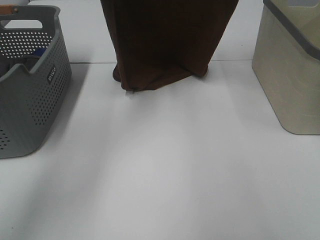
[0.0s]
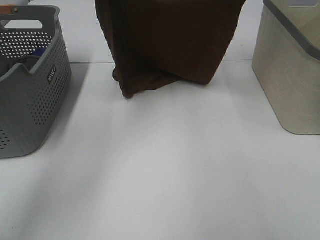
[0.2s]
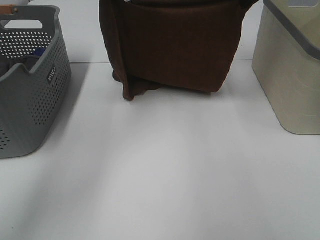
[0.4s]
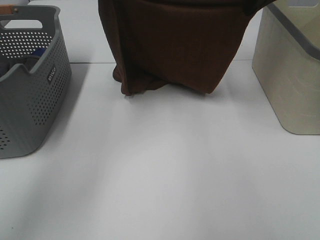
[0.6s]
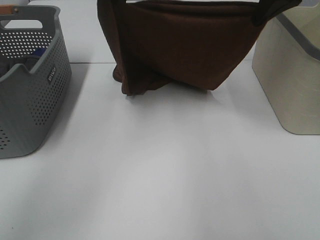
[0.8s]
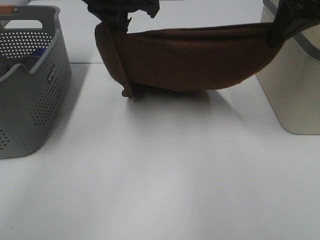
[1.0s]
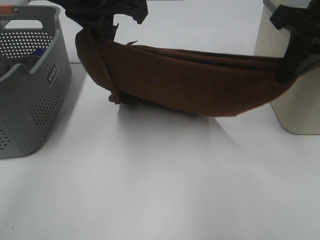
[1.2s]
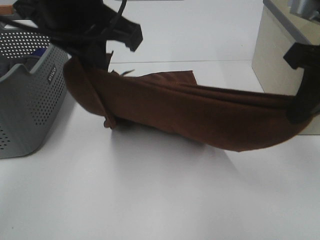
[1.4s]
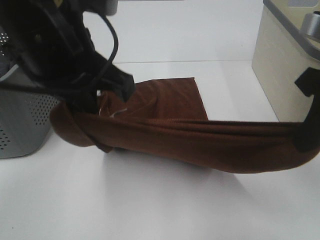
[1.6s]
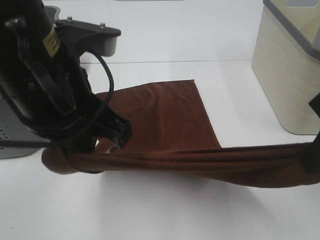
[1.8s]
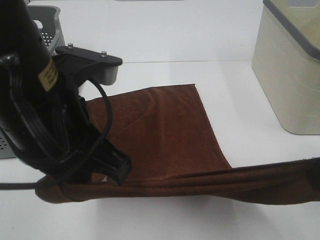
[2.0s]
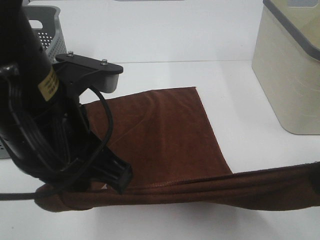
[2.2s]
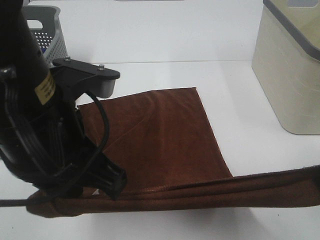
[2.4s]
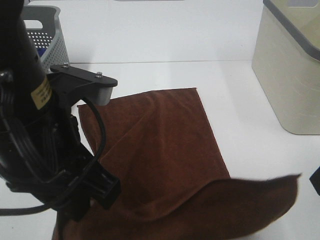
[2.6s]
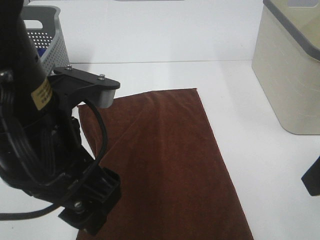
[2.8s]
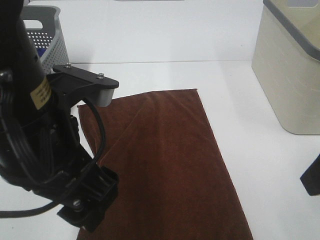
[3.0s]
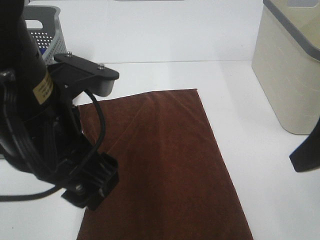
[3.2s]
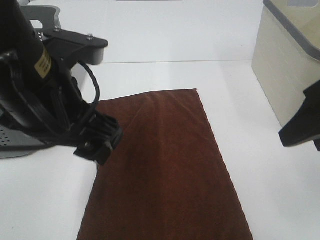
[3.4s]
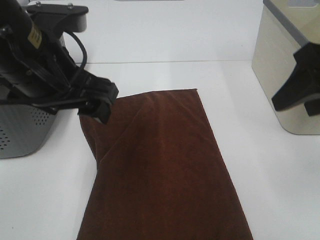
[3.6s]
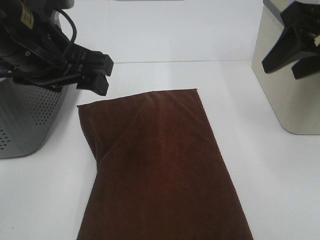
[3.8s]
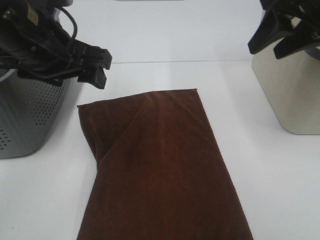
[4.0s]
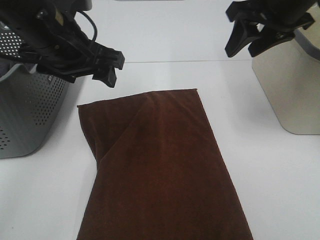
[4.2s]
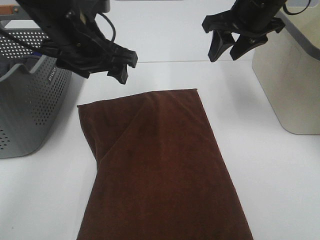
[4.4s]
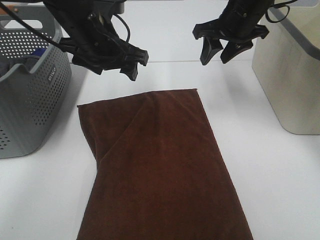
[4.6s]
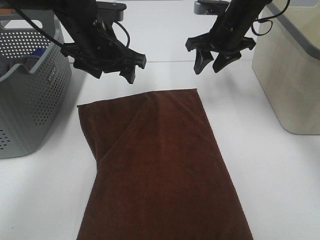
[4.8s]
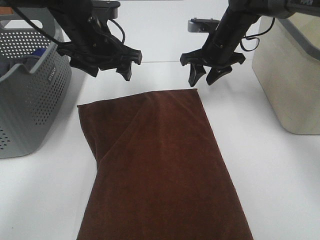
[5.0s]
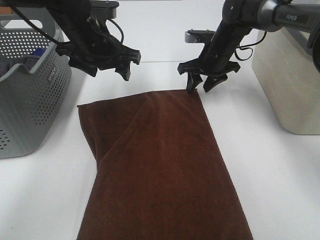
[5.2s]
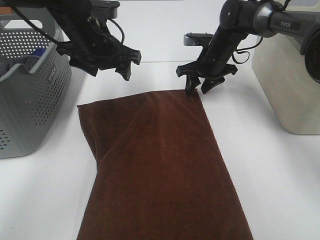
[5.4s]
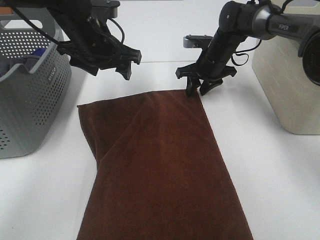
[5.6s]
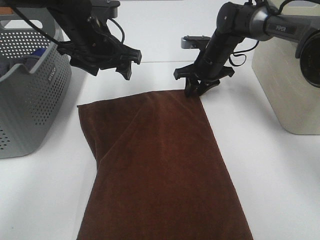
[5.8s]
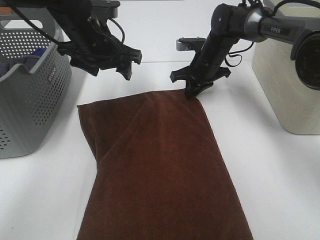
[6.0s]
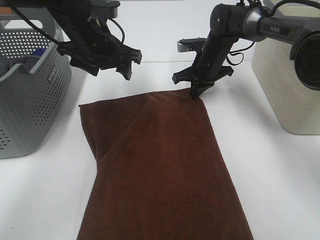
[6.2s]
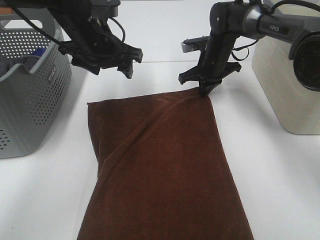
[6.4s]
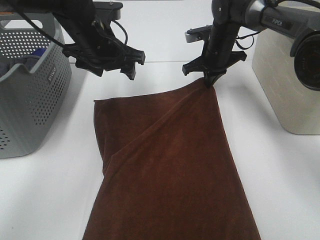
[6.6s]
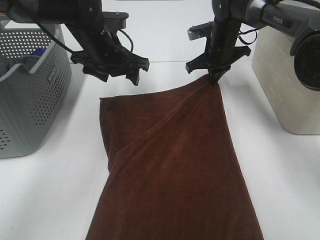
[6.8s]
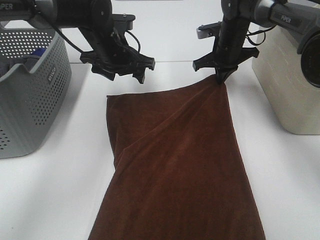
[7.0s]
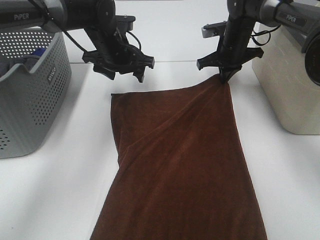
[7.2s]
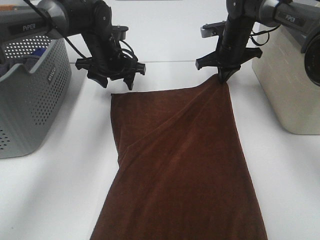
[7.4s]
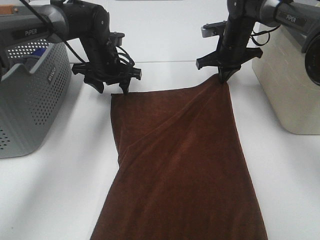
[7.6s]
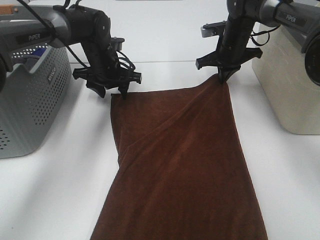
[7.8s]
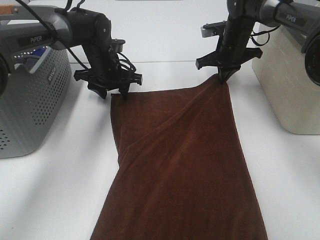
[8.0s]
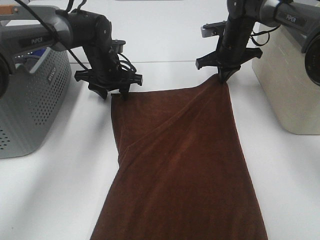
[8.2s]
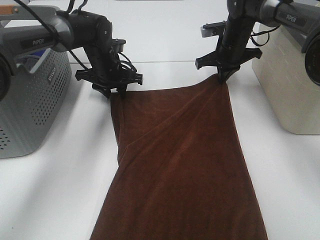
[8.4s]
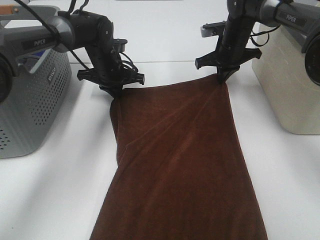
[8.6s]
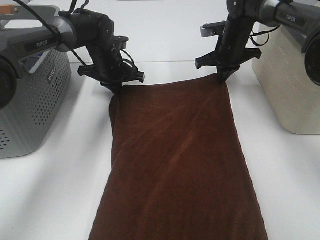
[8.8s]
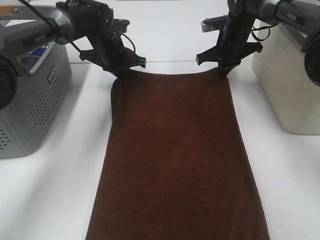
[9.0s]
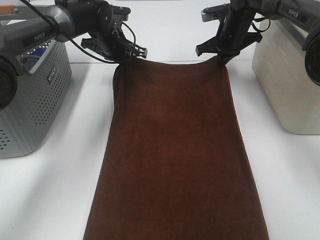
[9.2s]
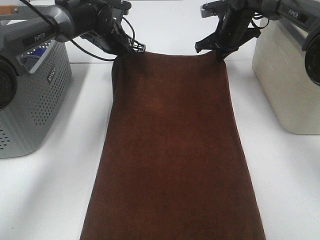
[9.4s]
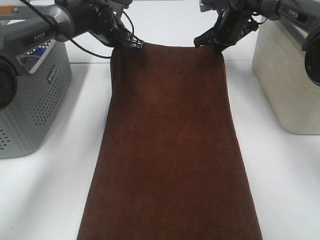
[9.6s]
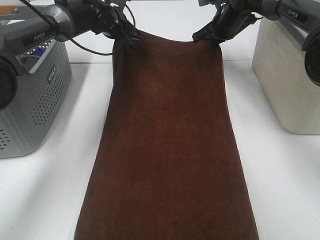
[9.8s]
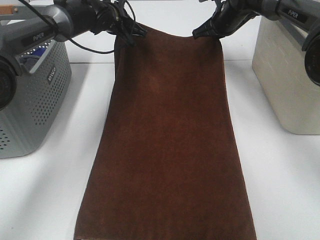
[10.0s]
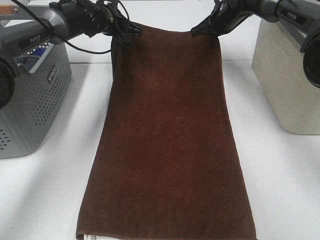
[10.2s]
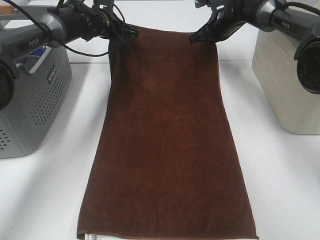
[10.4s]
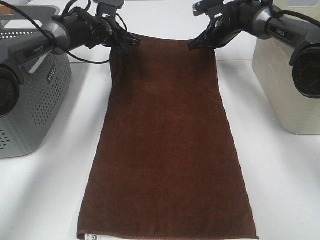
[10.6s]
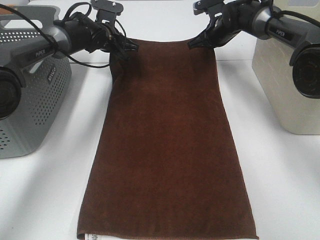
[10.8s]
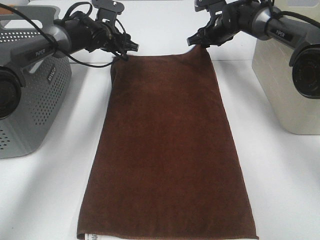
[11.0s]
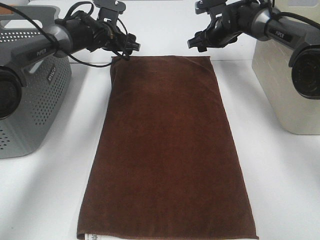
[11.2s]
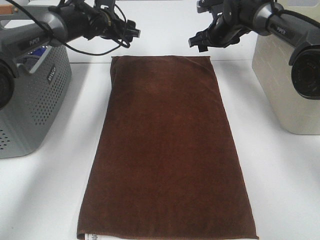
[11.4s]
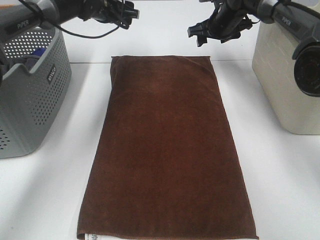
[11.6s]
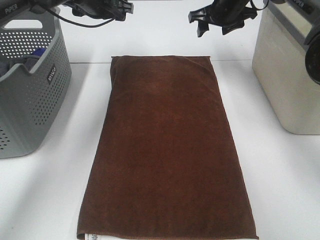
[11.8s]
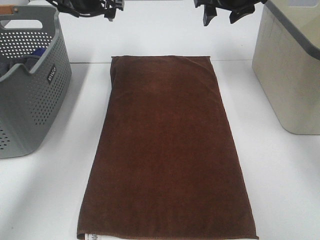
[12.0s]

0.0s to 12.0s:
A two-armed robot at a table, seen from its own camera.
Task of the whole recording: Remove the towel and place it.
Step, 0.0s to 4.4s: Left hand:adjust the brown towel.
Step, 0.0s to 4.4s: Right hand:adjust the brown towel.
0.0s to 1.6s: Both grippers travel together backward, approximately 25 cm.
1.6s to 3.0s: The two grippers go some 5 cm backward. The right gripper opens its fingers, while the left gripper opens its fingers.
3.0s to 4.4s: Both grippers travel together forward, roughly 25 cm.
4.4s to 6.0s: The right gripper moves downward and forward, some 20 cm, and closes up; the left gripper heads forward, covering approximately 5 cm.
6.0s to 7.6s: The left gripper moves downward and forward, roughly 10 cm. The right gripper changes place by approximately 5 cm.
7.6s to 9.0s: The left gripper closes.
9.0s to 10.4s: The left gripper ends up approximately 5 cm from where it was.
10.4s to 12.0s: The two grippers go some 10 cm upward. The left gripper opens up. The right gripper opens.

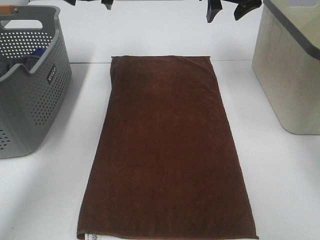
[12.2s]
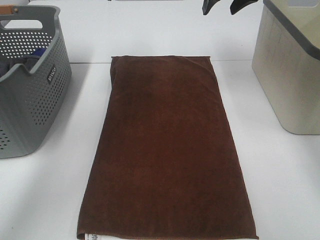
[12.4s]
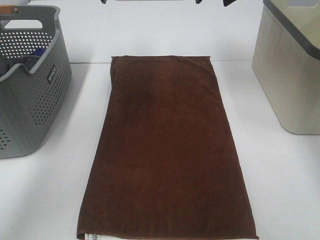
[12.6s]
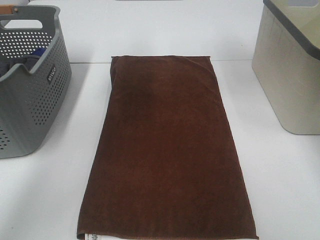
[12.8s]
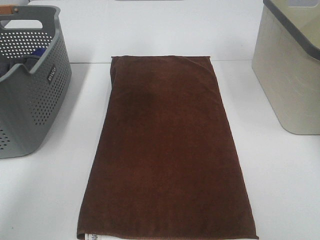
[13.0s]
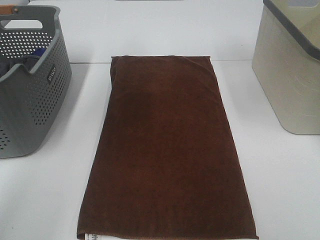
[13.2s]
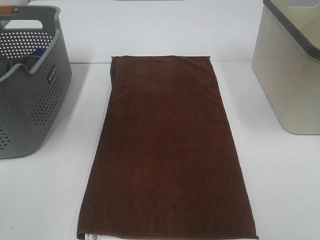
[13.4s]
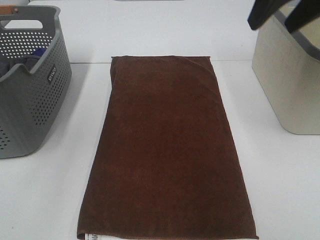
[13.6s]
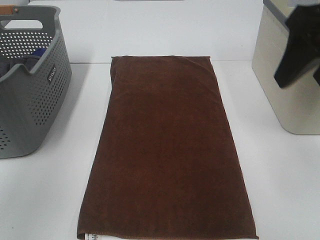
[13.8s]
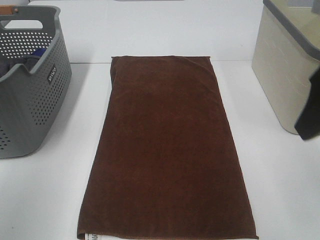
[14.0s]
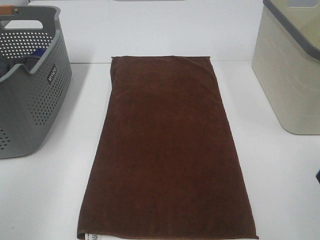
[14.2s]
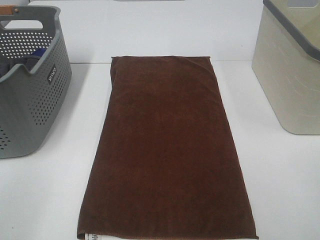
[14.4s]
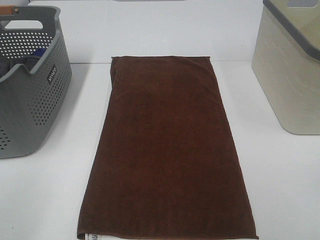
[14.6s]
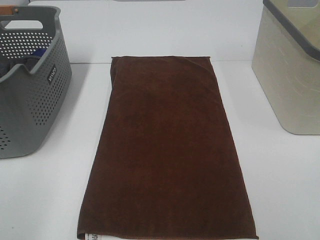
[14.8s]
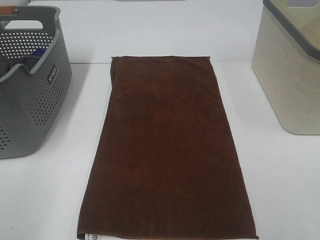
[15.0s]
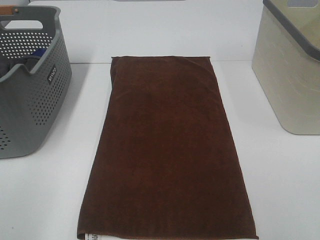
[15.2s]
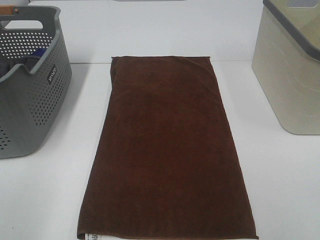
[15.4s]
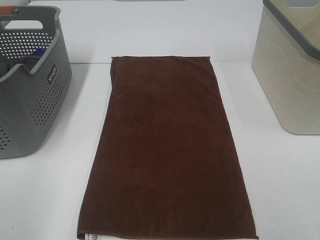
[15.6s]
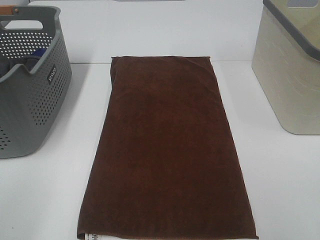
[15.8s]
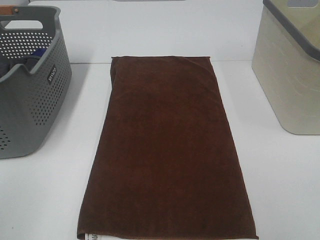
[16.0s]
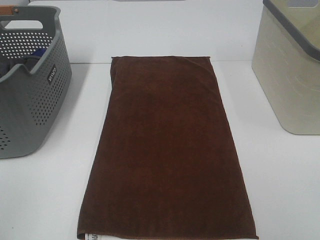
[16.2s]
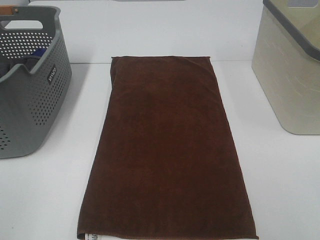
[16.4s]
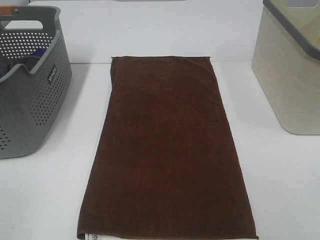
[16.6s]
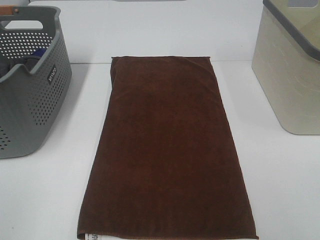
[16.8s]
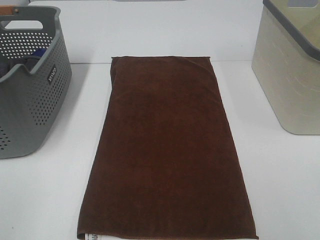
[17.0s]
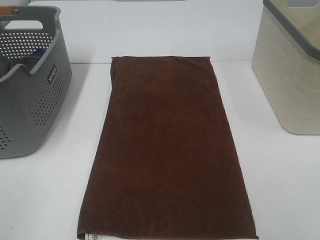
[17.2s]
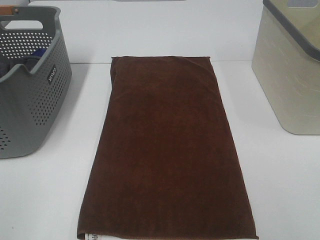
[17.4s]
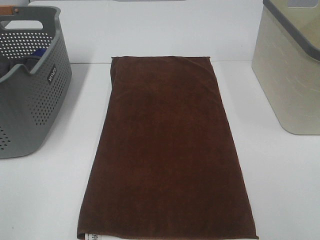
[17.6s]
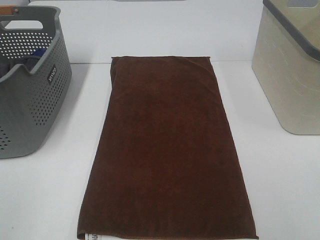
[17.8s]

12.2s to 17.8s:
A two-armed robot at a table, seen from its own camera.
Task of the whole recording: Remove the towel and place it.
12.2s to 13.6s: The left gripper moves backward and upward, roughly 30 cm. The right gripper shifts about 20 cm backward.
13.6s to 15.0s: The left gripper shifts some 25 cm backward and downward. The right gripper is displaced backward by some 25 cm.

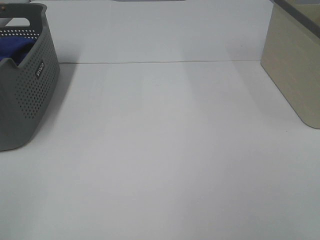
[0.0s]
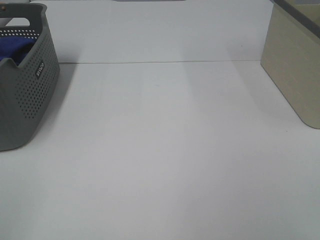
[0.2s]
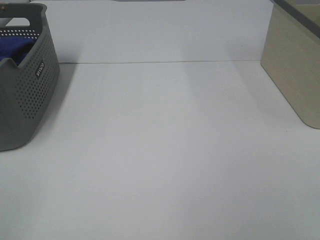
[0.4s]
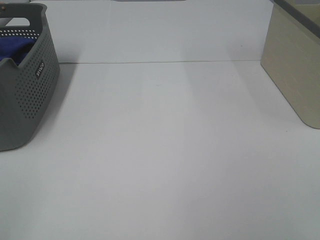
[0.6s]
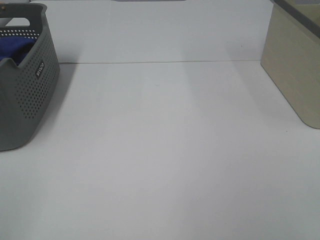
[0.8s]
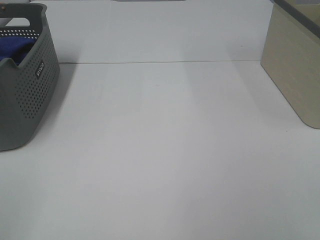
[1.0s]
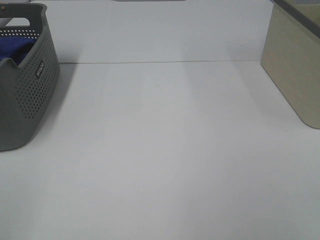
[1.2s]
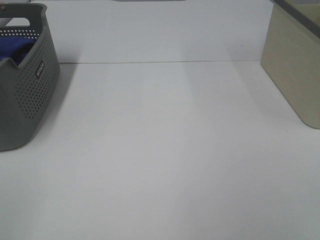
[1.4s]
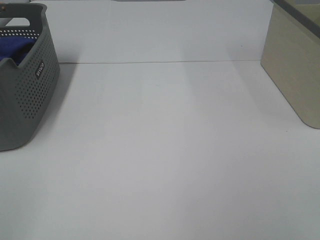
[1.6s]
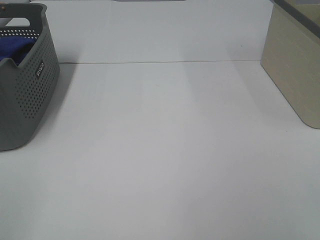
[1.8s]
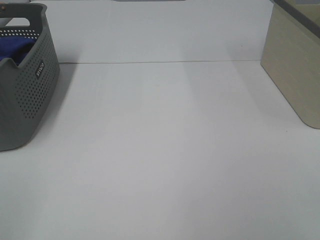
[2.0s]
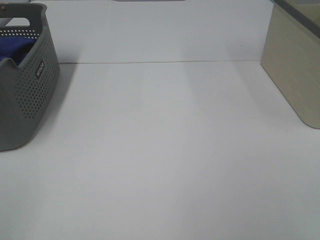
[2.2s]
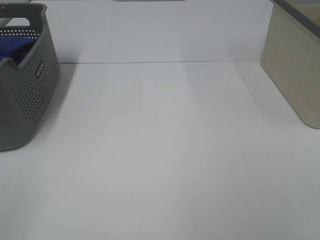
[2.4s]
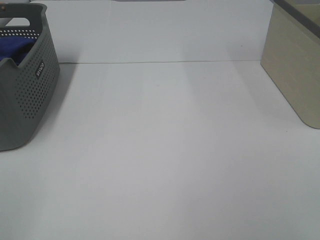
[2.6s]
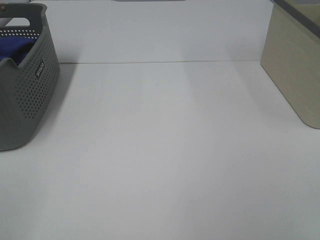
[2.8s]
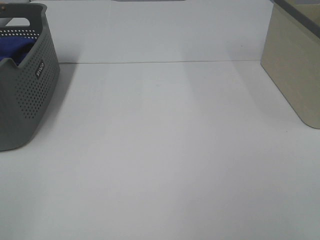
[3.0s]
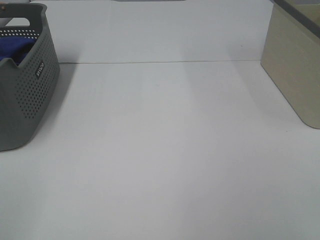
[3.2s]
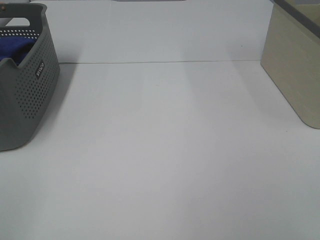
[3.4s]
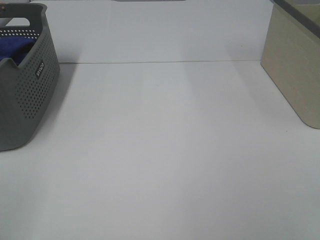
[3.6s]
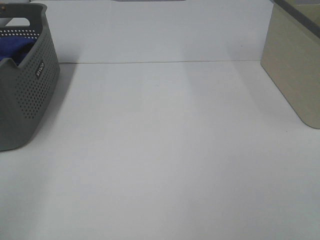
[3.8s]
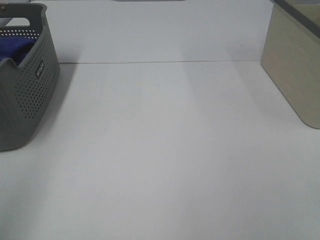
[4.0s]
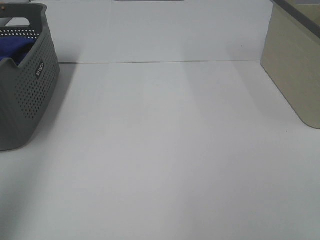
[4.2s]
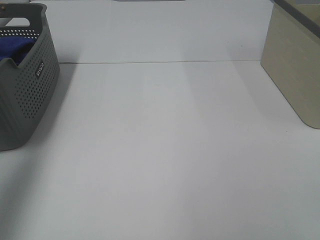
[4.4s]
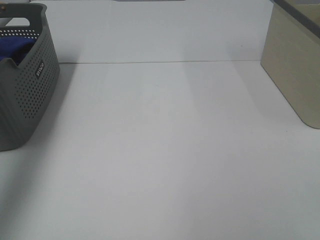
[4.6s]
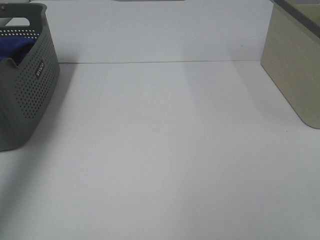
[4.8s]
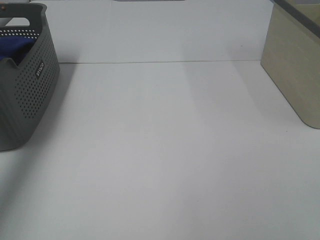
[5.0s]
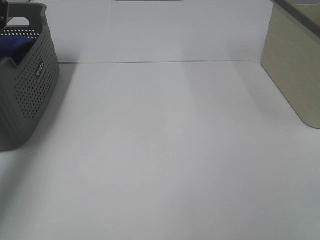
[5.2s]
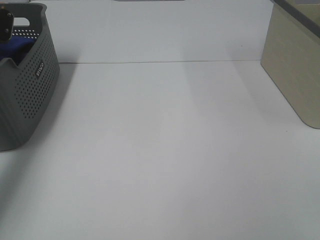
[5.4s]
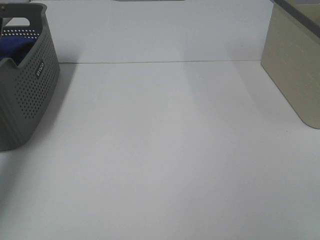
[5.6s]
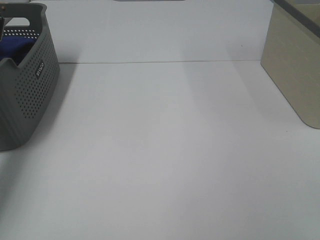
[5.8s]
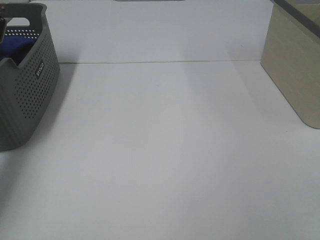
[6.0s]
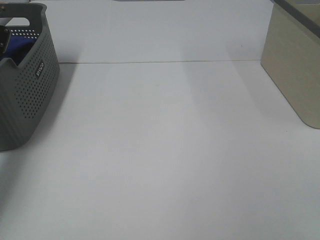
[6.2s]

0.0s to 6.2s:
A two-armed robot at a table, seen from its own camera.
Task of the whole recording: Remove the towel and place it.
0.0s to 3.2s: Neither gripper changes place.
3.2s to 4.6s: The left gripper is displaced forward by about 30 cm.
4.6s to 6.2s: The left gripper goes some 25 cm downward and forward.
